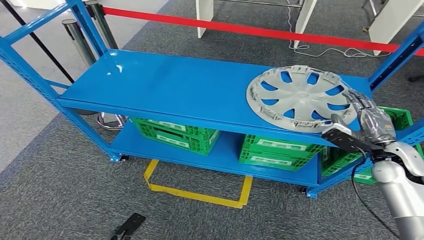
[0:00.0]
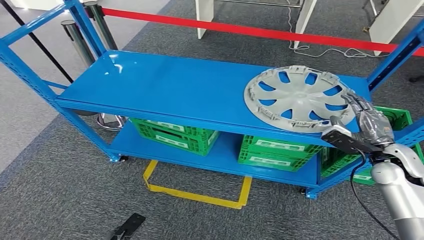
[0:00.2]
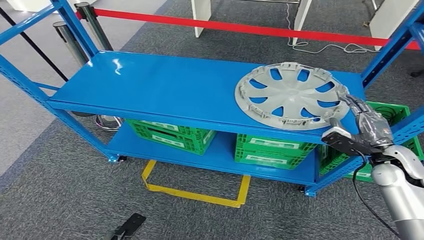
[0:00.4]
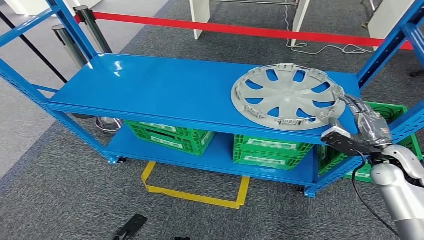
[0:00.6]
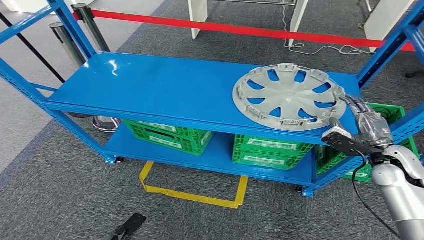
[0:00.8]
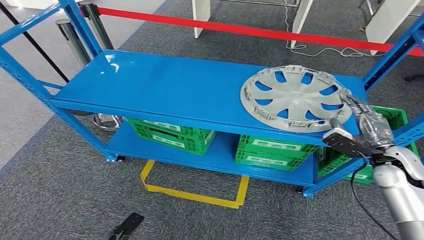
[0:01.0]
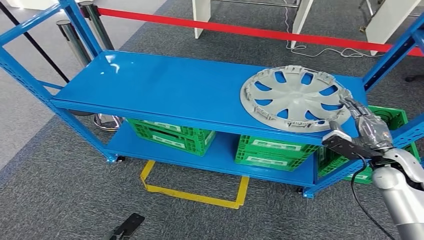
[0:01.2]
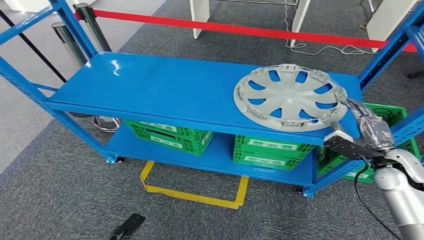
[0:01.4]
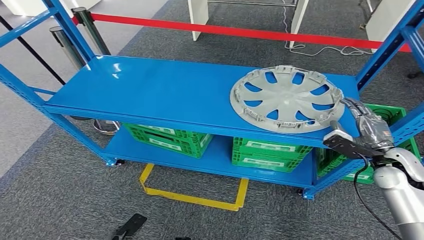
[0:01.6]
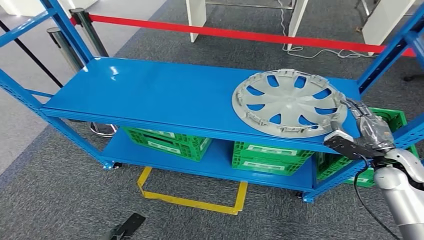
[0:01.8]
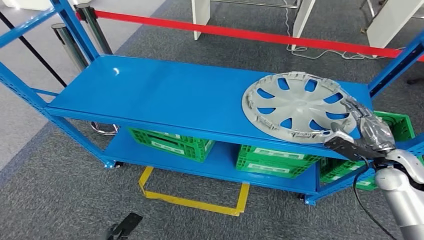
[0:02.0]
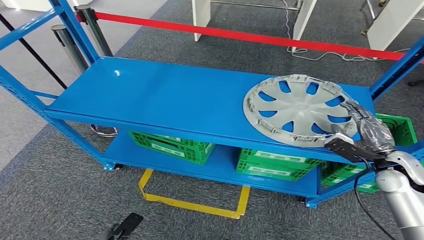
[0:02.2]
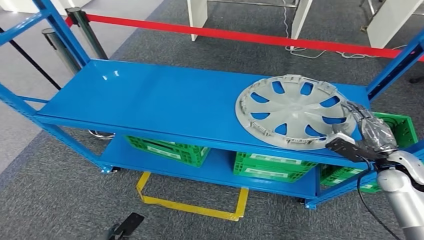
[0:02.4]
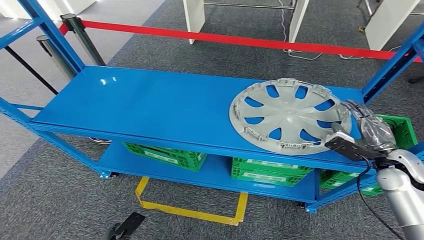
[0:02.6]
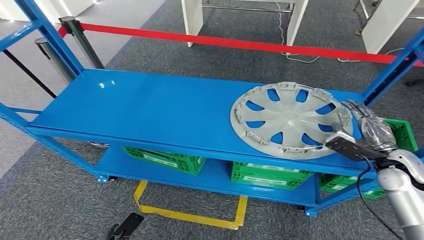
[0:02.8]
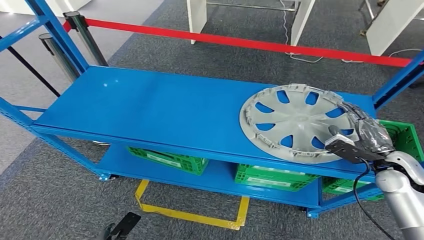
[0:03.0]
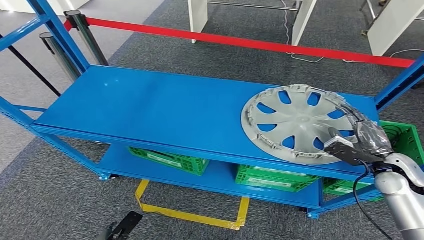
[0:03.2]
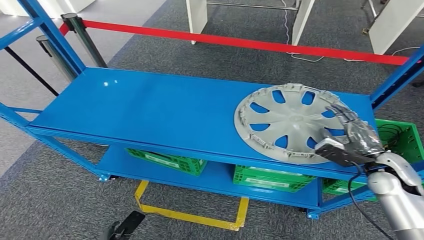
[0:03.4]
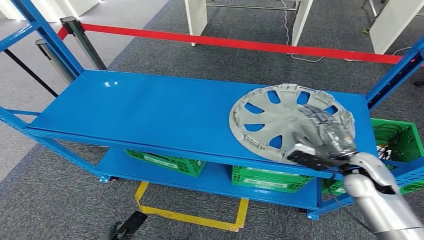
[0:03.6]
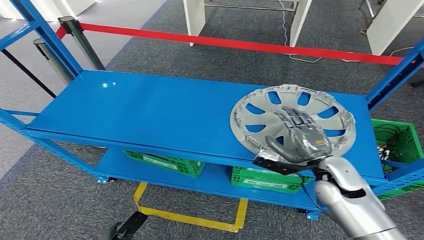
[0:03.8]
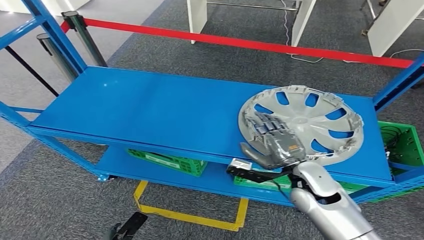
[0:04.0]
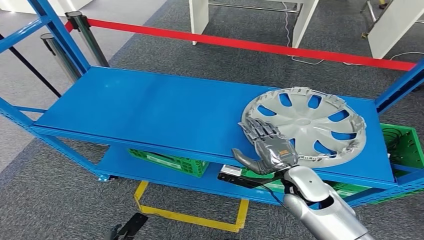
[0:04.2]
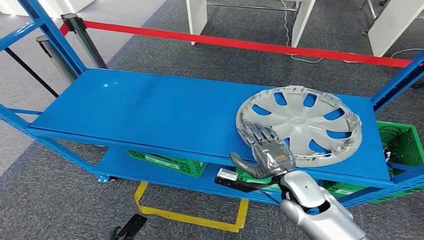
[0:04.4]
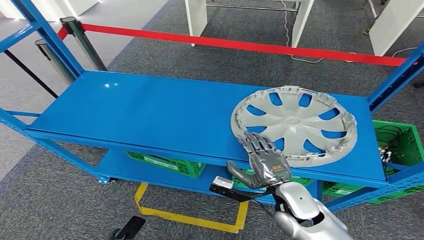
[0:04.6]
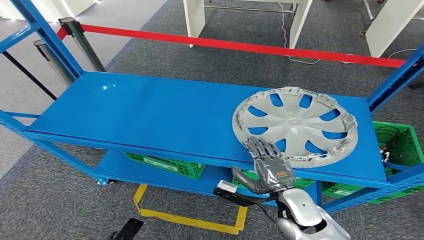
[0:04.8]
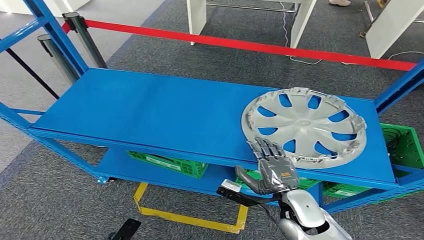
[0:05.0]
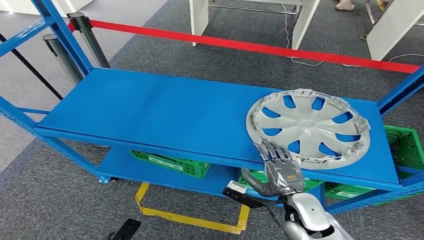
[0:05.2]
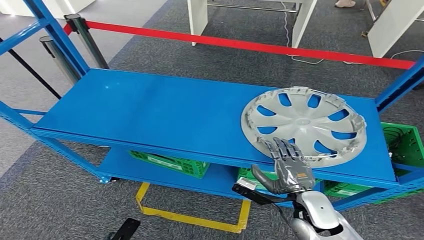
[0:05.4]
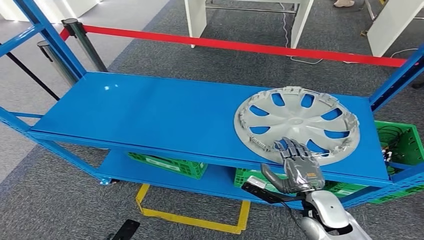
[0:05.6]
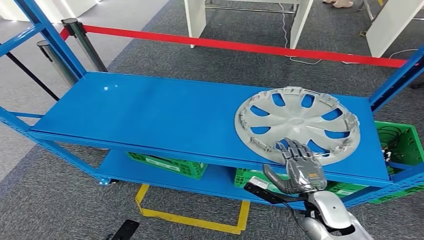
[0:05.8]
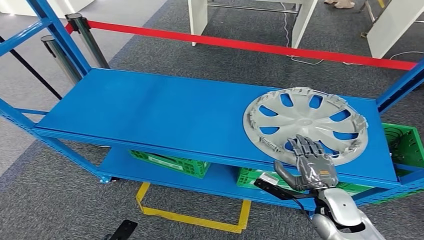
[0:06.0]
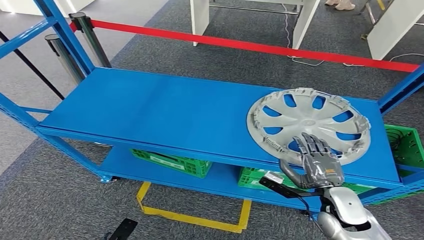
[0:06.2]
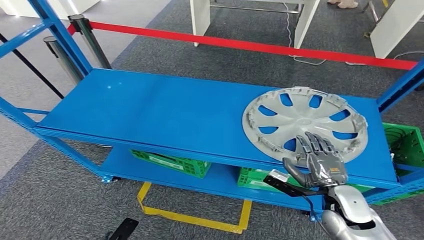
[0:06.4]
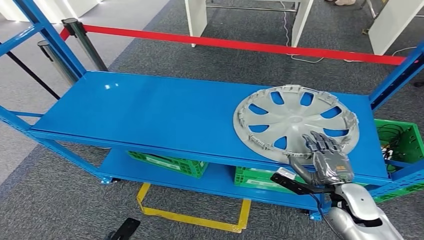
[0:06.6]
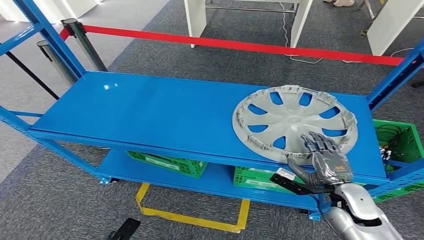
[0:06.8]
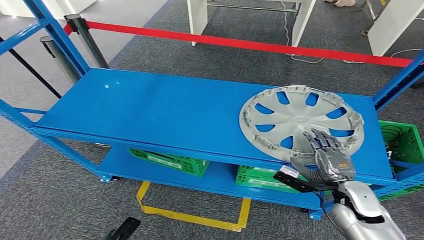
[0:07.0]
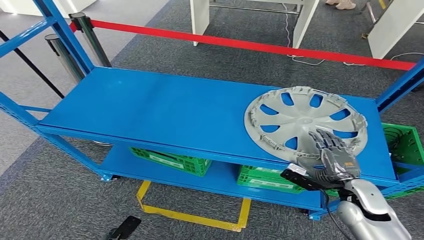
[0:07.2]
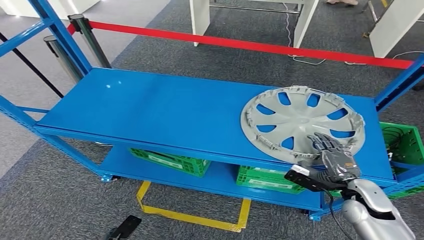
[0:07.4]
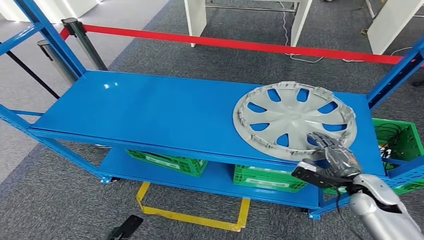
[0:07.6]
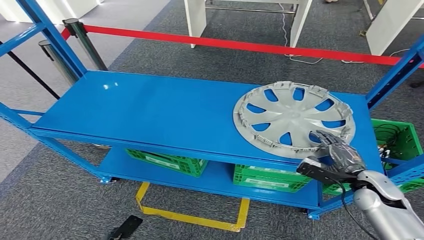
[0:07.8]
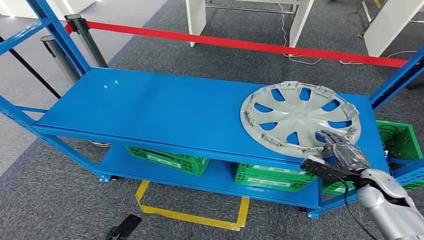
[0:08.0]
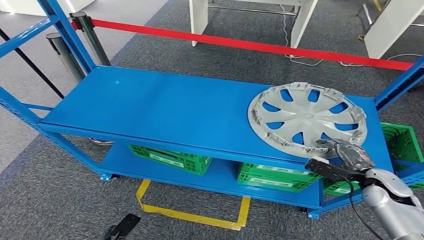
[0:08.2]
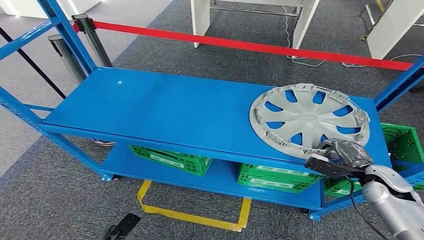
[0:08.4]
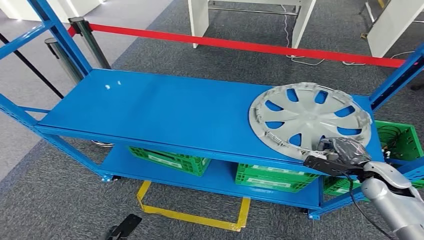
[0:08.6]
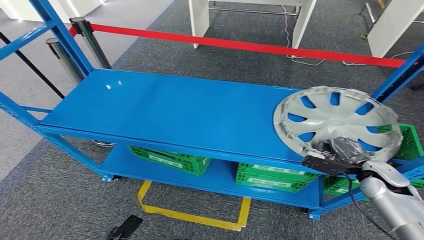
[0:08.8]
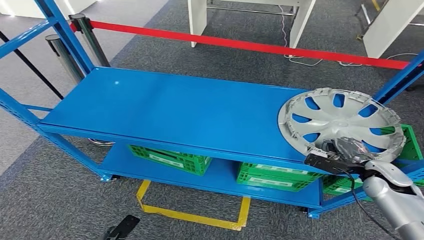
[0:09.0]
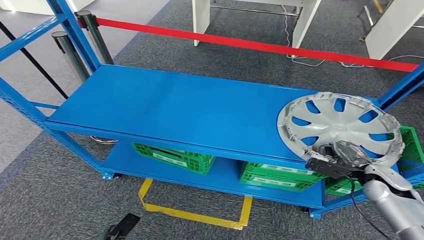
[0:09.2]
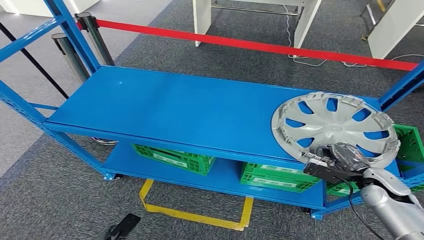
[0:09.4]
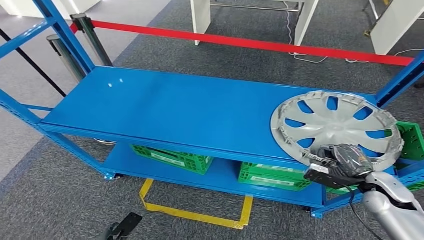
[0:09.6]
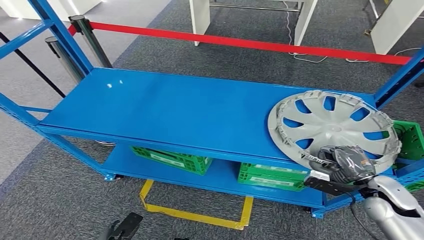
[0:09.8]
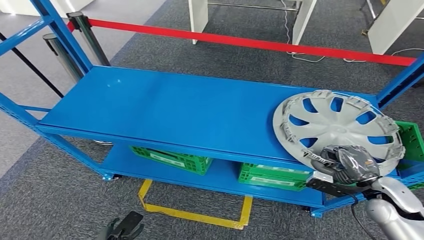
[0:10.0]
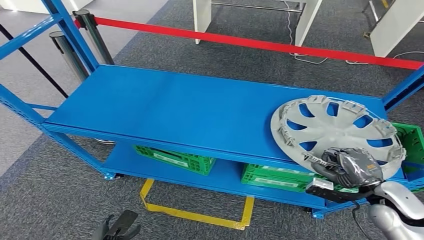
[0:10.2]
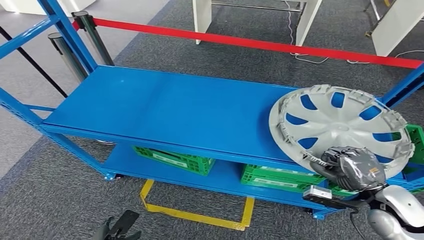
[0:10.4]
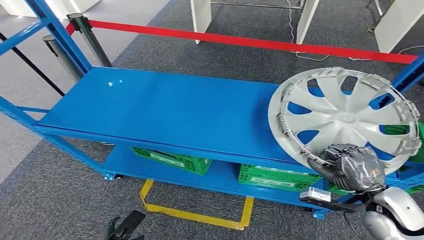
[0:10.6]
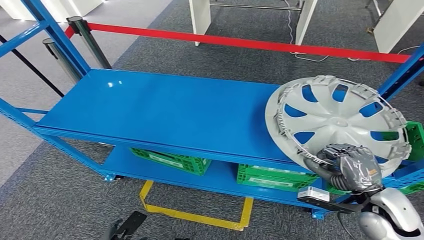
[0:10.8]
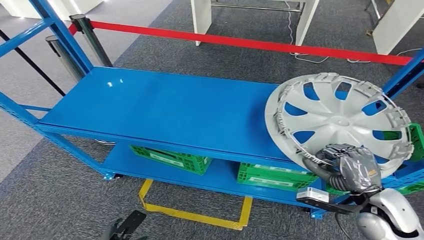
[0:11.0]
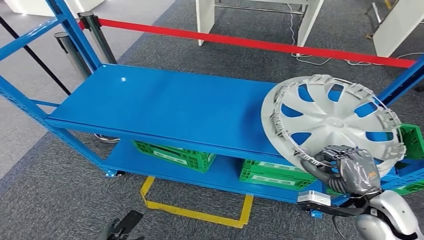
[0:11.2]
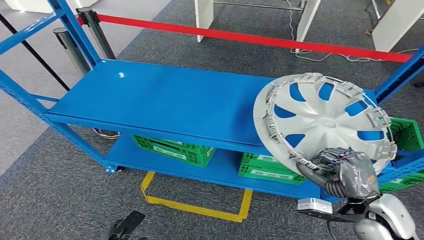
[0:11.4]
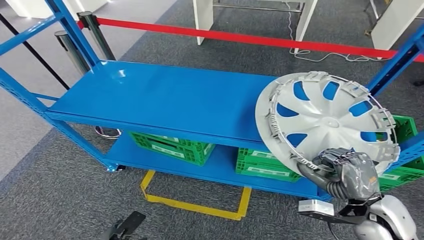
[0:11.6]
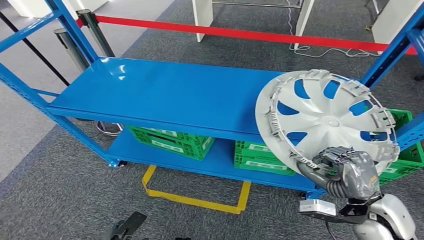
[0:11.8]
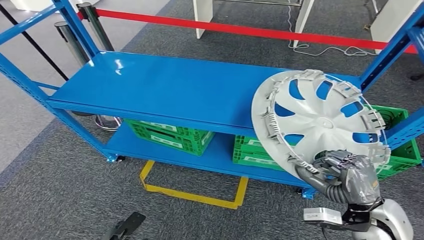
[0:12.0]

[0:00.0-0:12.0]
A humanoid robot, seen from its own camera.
0:04.4 to 0:06.0: The right hand shifts some 5 cm to the right.

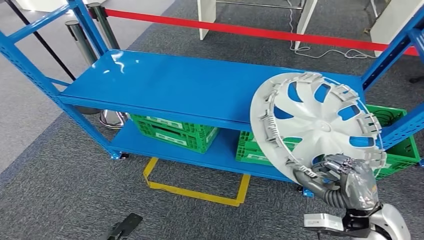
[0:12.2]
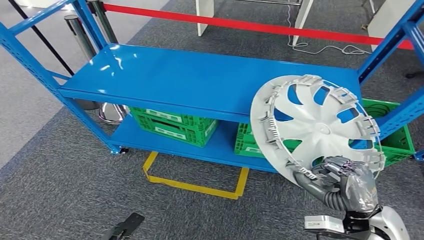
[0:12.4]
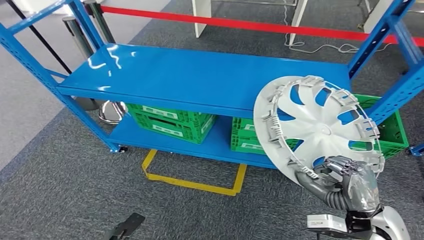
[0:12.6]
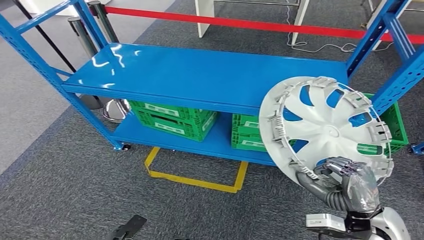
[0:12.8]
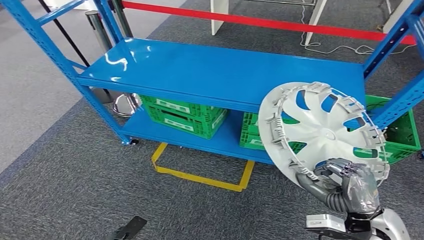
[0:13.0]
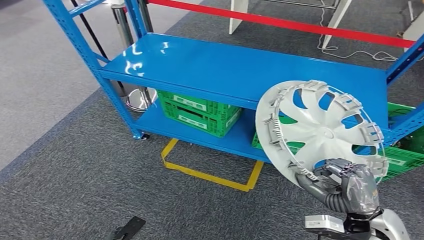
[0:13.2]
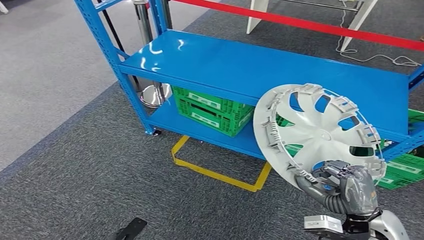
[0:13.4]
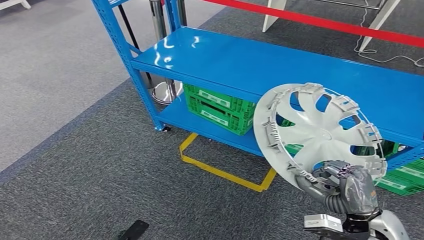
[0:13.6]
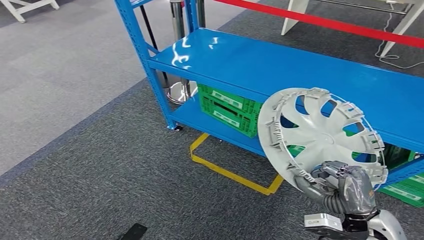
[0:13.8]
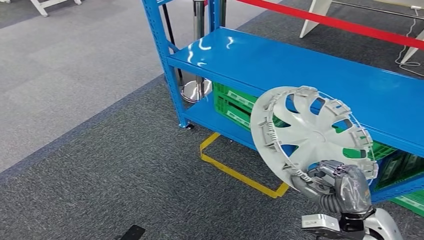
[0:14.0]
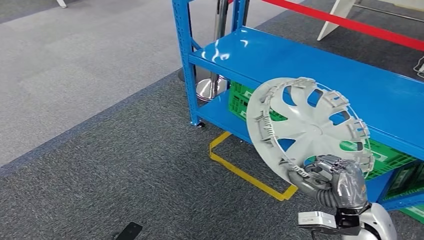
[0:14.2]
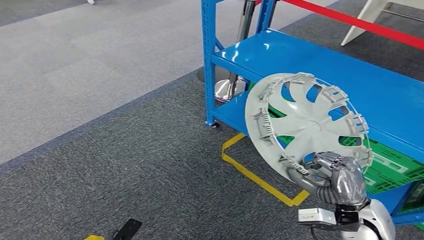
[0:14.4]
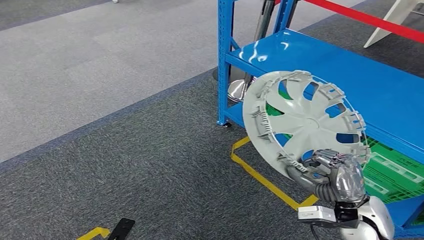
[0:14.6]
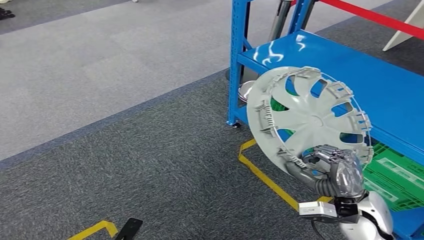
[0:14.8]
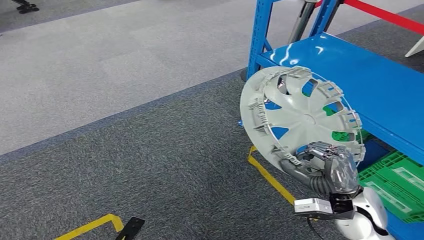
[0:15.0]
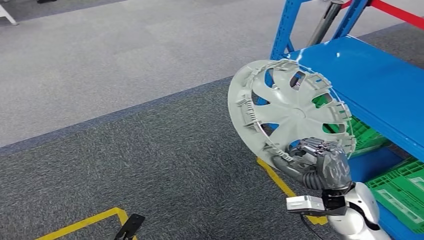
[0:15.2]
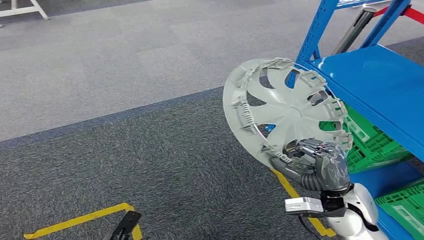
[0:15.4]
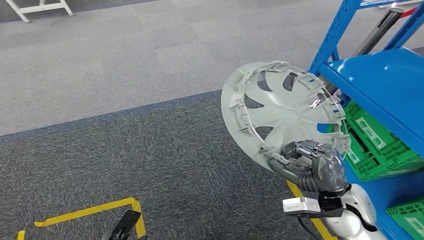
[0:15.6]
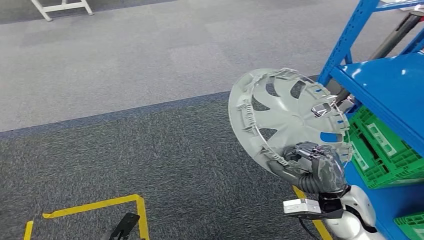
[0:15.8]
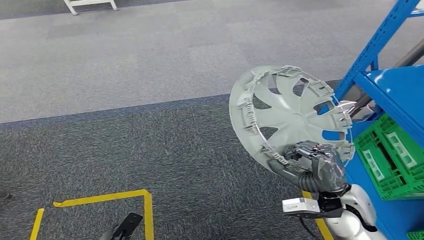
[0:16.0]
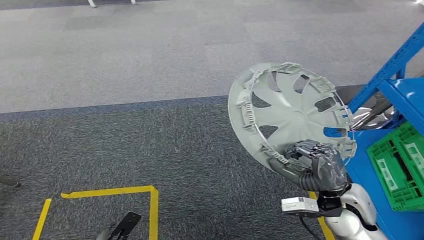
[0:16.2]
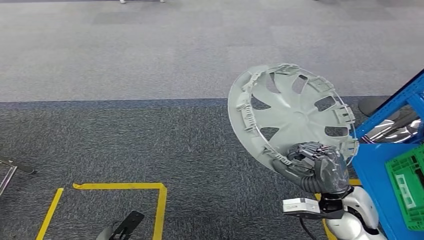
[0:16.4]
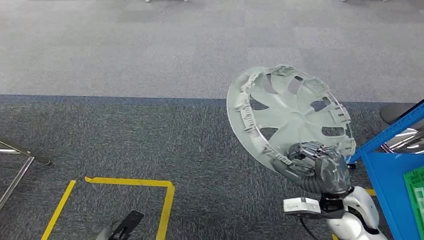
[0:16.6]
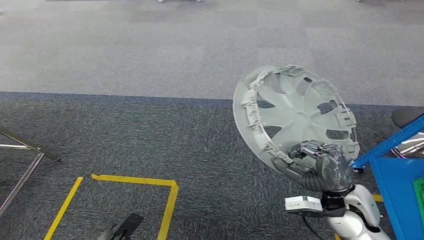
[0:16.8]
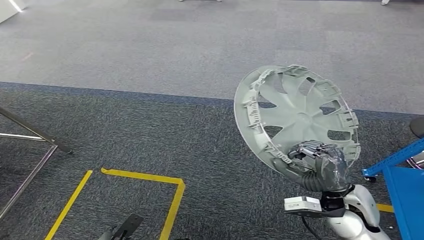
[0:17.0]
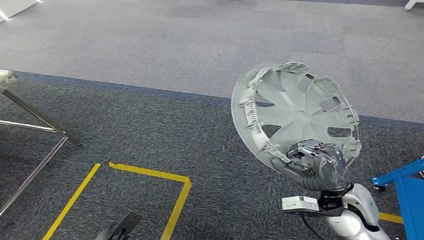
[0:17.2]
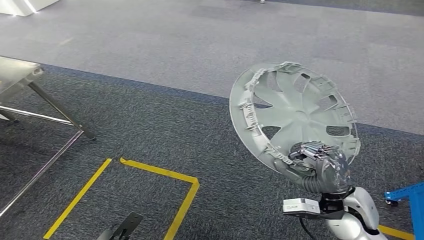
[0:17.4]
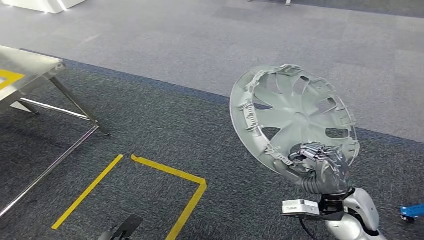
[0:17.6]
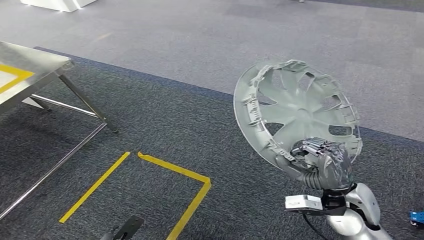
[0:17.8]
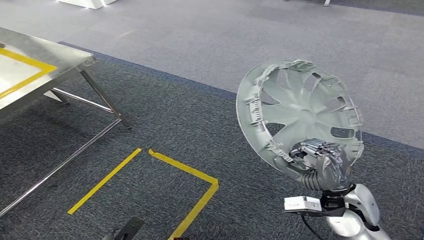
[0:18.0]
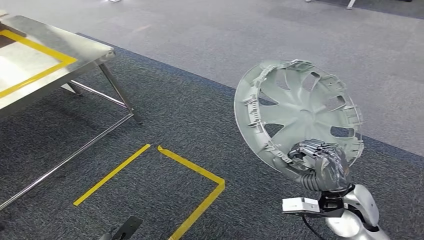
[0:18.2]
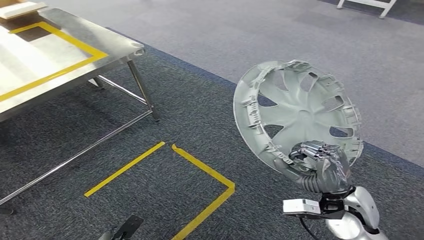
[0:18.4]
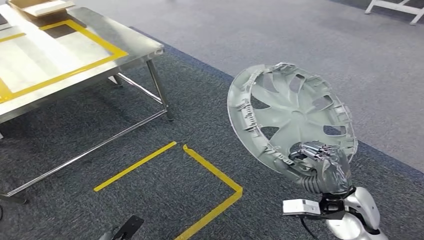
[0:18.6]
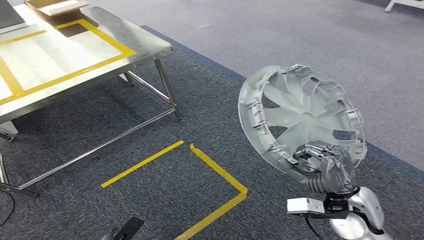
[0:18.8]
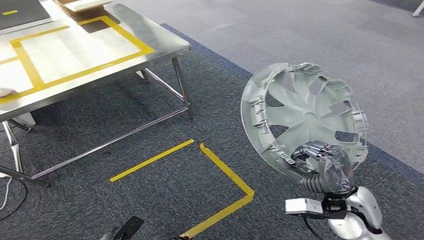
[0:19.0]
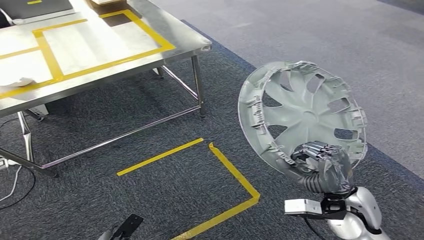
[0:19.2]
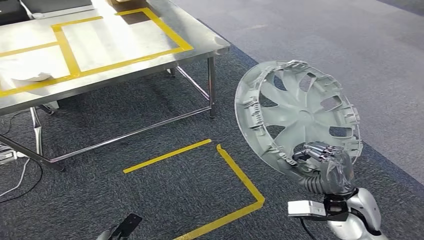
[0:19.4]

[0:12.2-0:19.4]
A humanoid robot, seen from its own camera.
Step, 0:12.2 to 0:15.6: Pick up the small parts from the shelf.
